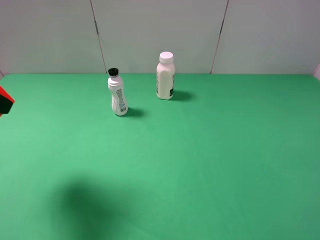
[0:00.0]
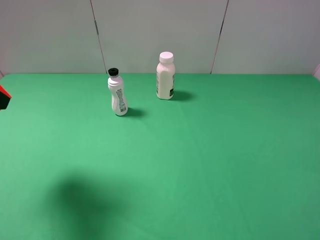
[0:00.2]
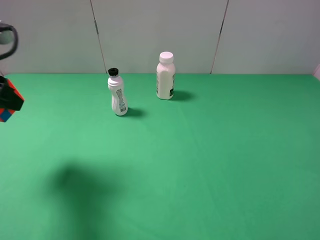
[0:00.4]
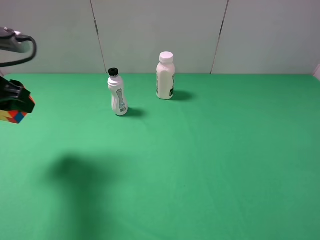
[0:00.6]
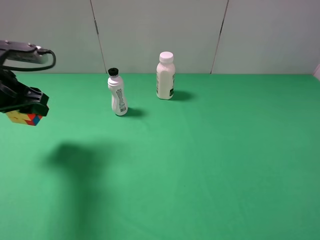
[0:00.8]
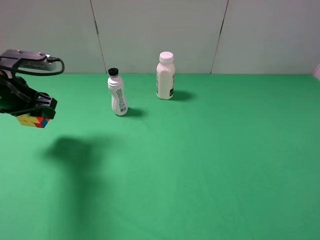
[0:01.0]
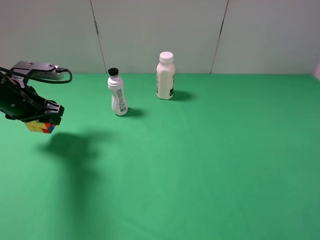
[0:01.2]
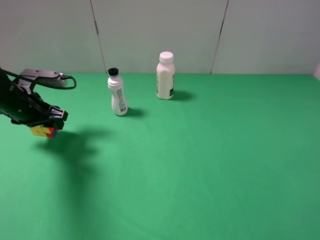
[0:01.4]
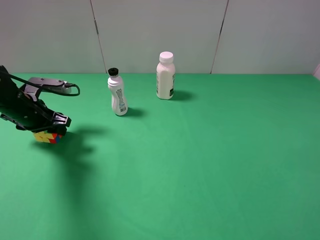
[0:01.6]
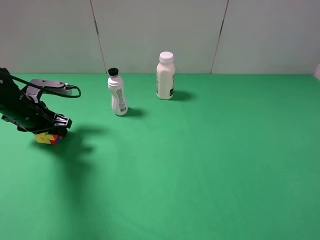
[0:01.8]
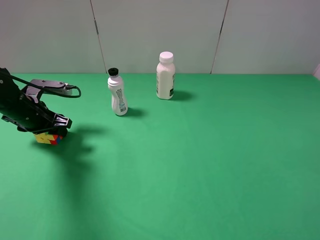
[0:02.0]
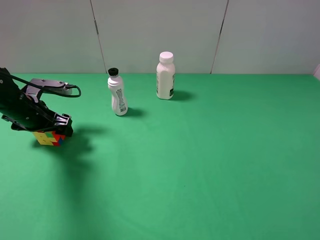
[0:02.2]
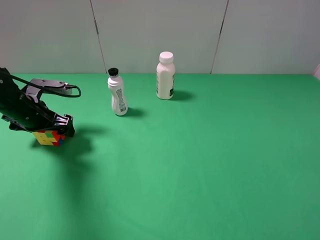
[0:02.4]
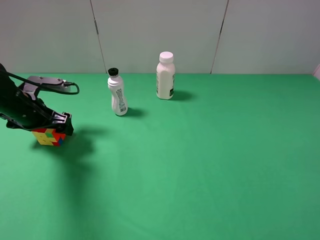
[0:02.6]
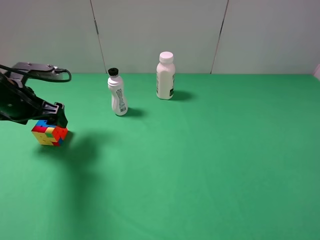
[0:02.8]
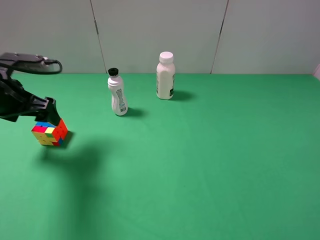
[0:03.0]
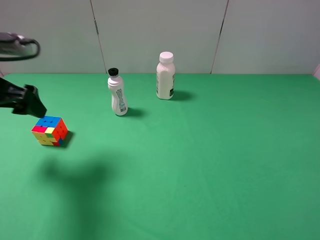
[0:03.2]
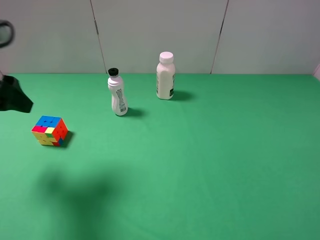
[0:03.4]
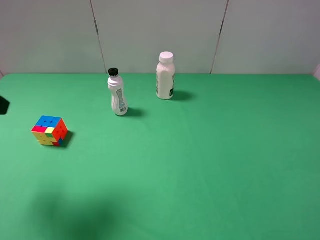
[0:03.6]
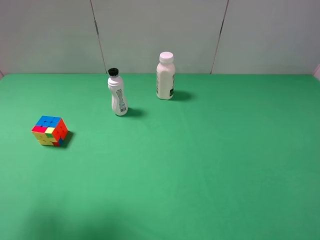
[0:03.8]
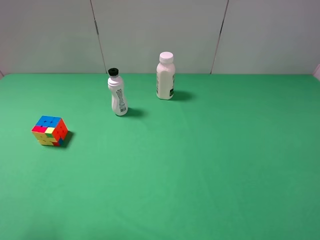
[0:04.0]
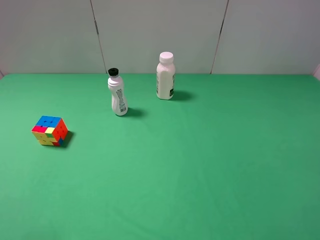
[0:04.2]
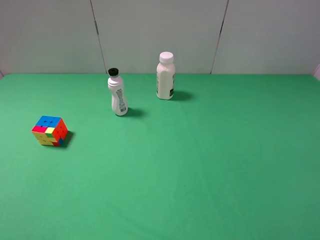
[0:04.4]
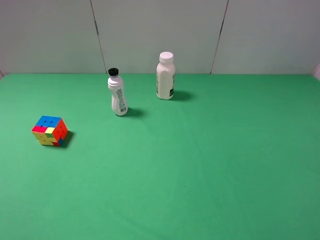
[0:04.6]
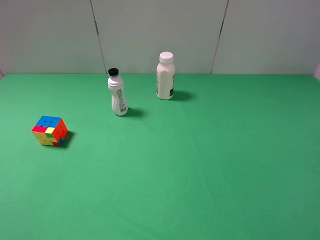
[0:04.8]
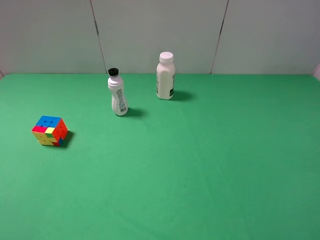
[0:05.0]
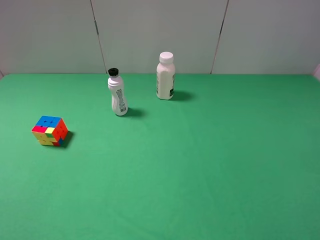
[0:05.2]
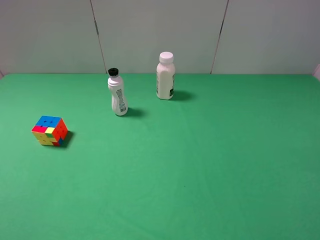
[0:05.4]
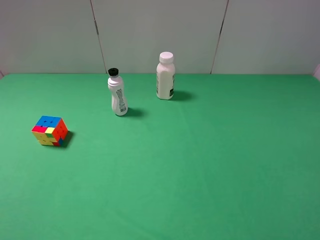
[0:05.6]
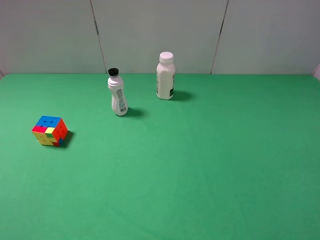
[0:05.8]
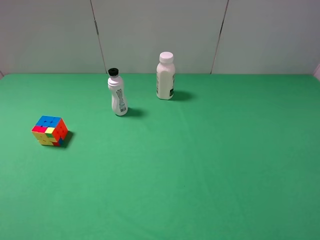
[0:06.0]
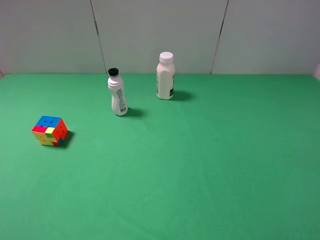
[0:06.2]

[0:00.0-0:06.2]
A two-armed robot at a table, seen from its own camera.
Task of the whole recording: use the right gripper to pick up the item and transfer it from the right gripper to the left gripper.
Step, 0:00.0 to 0:02.4: The left gripper places Rubik's Cube on the left side of the table.
0:00.0 to 0:01.6: The left gripper goes some 25 cm downward and forward.
0:01.6 to 0:03.2: The left gripper shifts approximately 15 cm upward and backward, and opens.
0:03.2 to 0:04.6: The left gripper is displaced backward by some 20 cm.

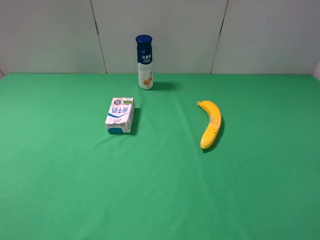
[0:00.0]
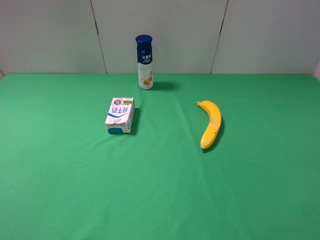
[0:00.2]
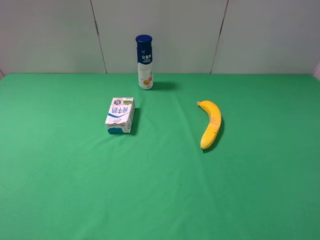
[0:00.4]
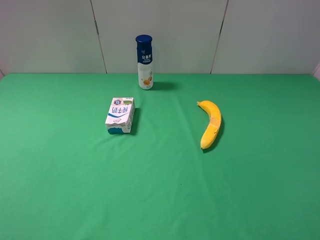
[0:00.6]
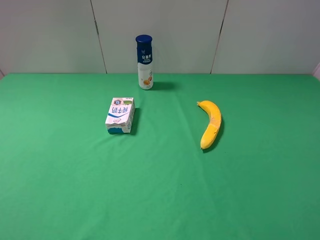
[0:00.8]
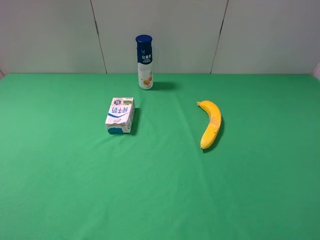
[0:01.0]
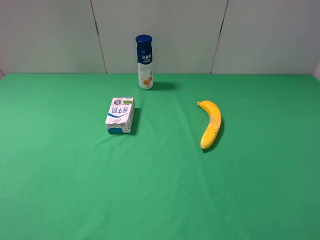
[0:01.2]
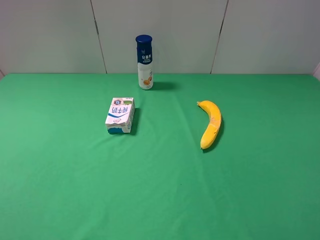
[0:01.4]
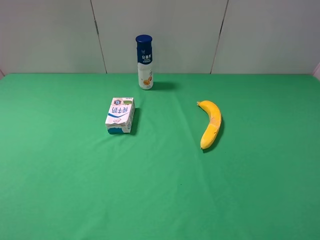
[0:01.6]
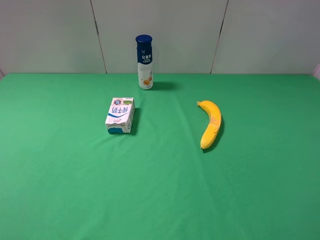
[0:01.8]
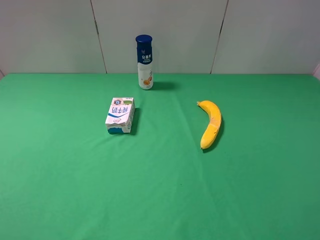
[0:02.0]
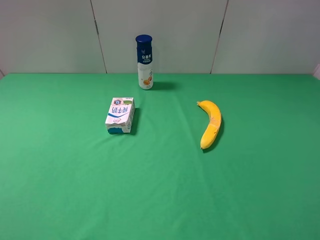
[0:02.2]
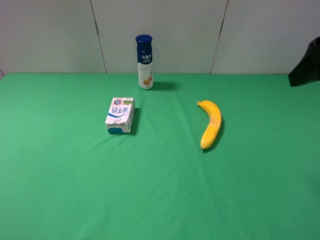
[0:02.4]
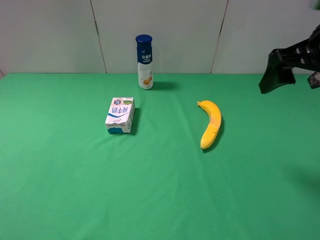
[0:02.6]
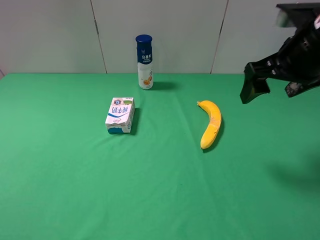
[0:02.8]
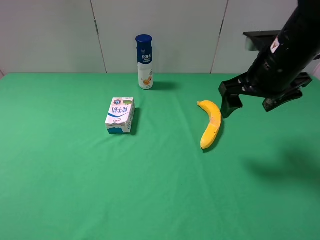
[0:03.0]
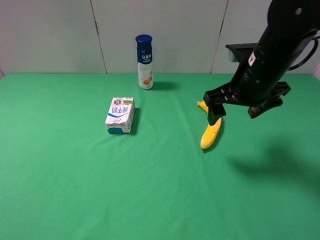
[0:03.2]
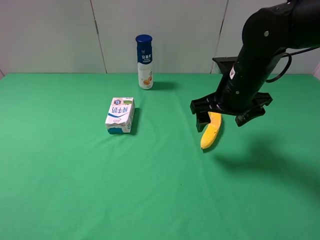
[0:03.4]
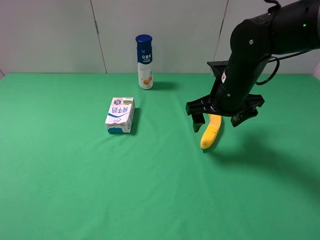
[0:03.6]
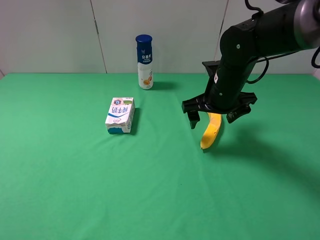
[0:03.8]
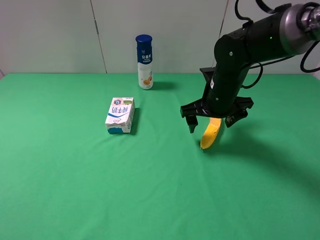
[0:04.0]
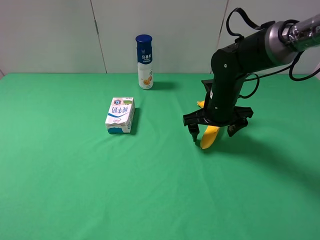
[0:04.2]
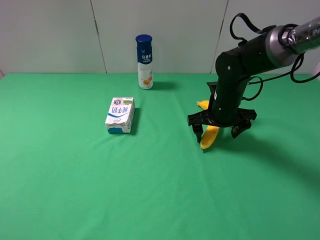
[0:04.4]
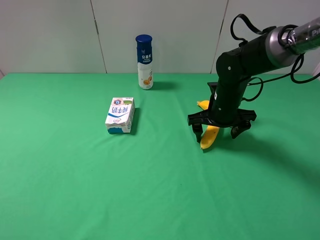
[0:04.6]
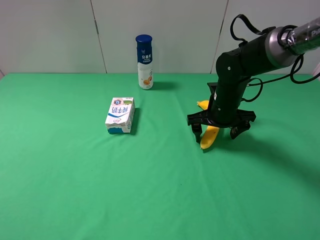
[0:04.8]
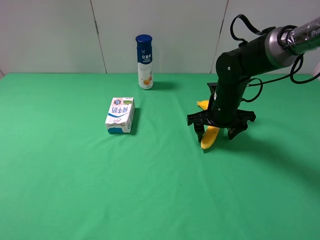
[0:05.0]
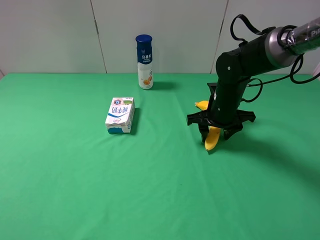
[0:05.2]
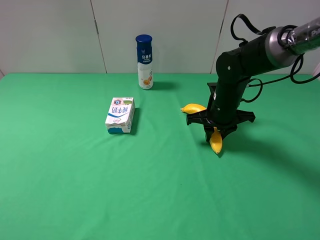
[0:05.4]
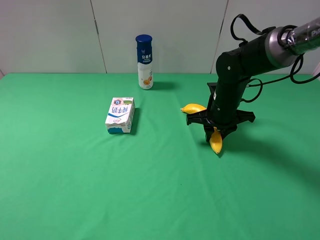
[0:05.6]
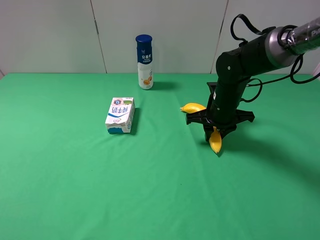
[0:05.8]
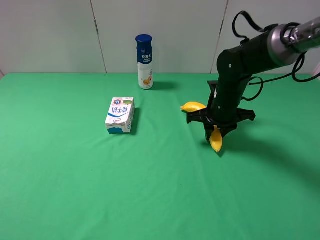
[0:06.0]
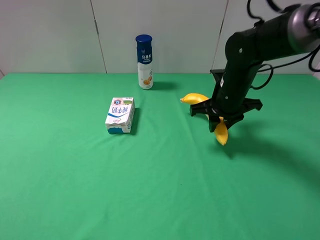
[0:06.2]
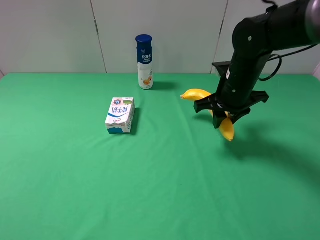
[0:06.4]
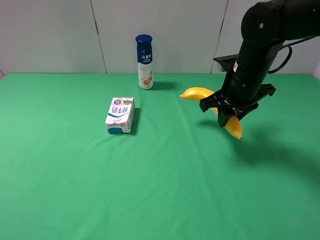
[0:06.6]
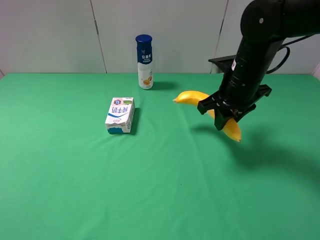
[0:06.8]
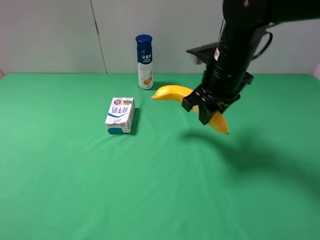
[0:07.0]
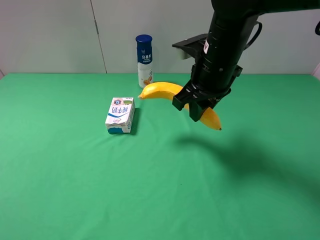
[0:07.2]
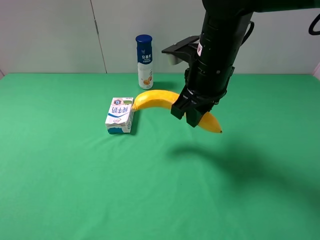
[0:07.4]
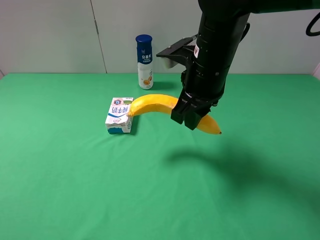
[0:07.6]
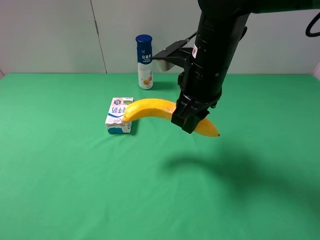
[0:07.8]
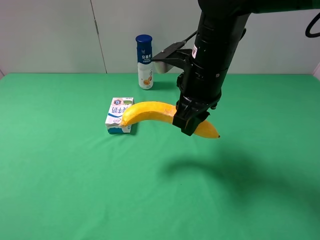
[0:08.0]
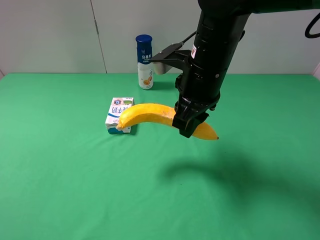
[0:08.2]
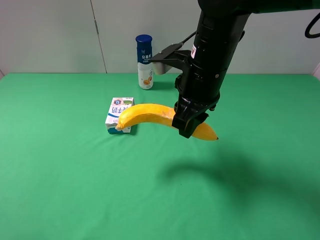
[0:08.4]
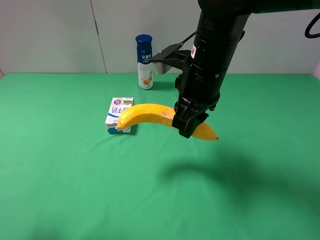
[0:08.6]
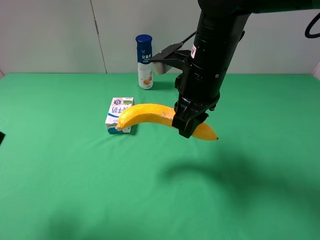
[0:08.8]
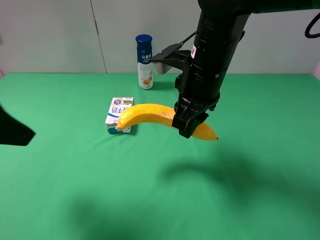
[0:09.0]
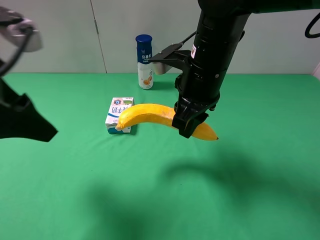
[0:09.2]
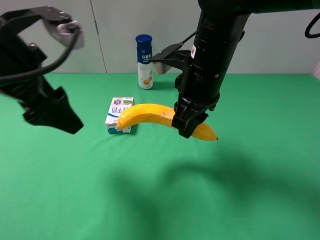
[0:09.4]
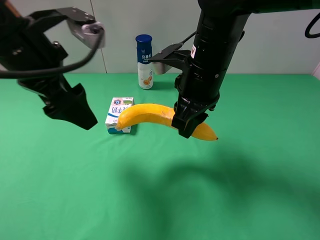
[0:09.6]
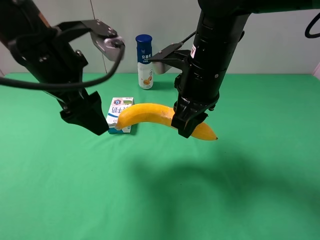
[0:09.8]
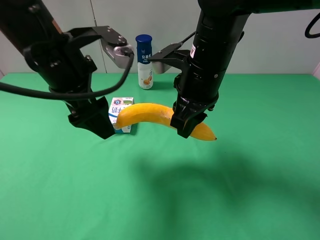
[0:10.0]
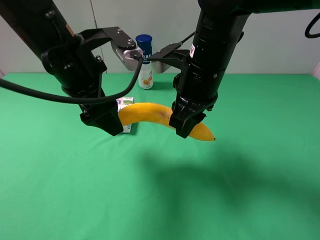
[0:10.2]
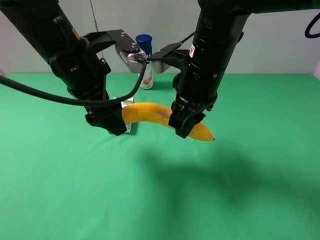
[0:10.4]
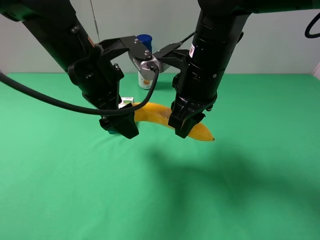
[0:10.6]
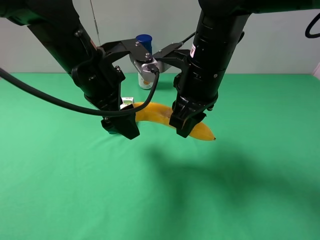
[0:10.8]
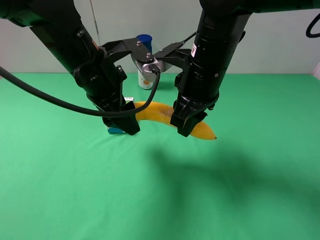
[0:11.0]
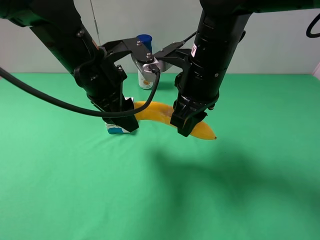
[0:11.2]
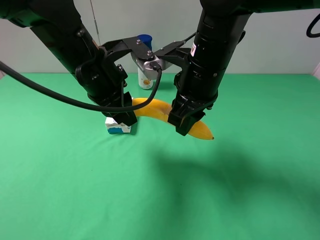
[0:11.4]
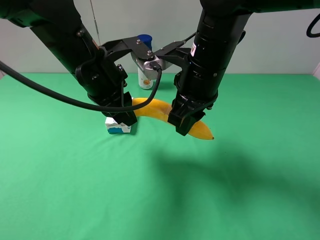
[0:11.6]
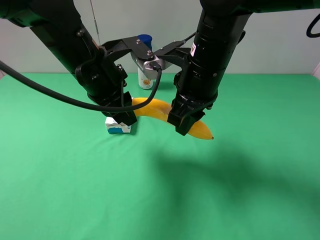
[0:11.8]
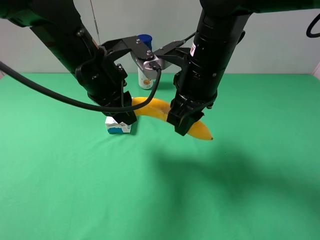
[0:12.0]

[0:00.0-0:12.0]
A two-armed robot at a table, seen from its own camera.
Task of the whole recording: use the right gripper to pick up the item and transfer it from the right gripper to the left gripper.
0:01.6 to 0:03.0: The right gripper shifts about 30 cm forward and to the left.
0:03.0 to 0:04.4: The right gripper travels downward and forward by roughly 15 cm.
0:04.4 to 0:06.0: The right gripper closes its fingers.
0:06.0 to 0:07.6: The right gripper moves upward, to the left and backward, about 15 cm.
0:07.6 to 0:09.0: The left gripper travels forward and to the right by approximately 20 cm.
0:09.0 to 0:10.4: The left gripper moves to the right, forward and downward, some 15 cm.
0:10.4 to 0:12.0: The left gripper closes its fingers; the right gripper opens its fingers.

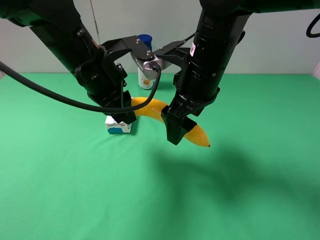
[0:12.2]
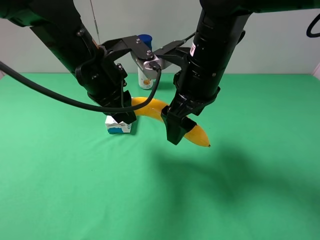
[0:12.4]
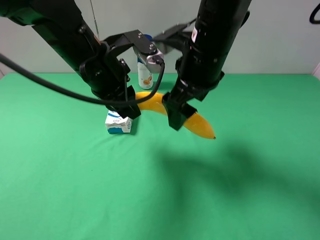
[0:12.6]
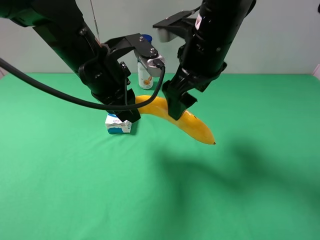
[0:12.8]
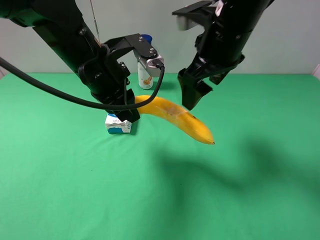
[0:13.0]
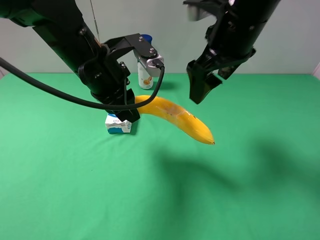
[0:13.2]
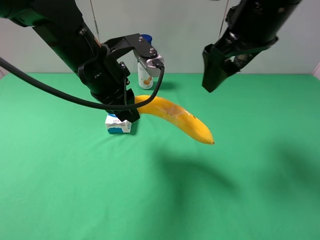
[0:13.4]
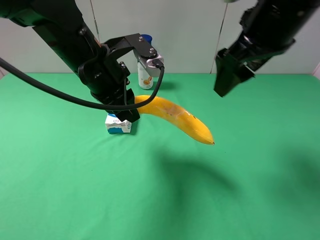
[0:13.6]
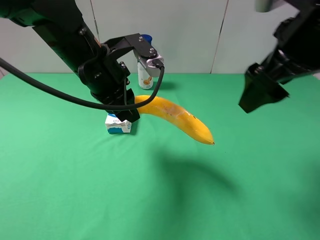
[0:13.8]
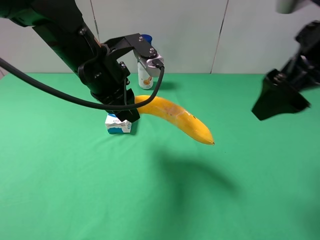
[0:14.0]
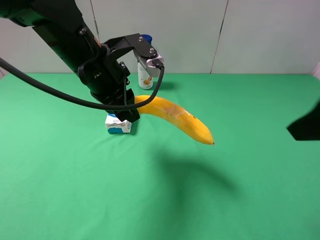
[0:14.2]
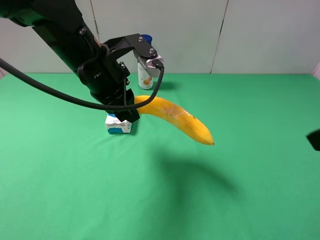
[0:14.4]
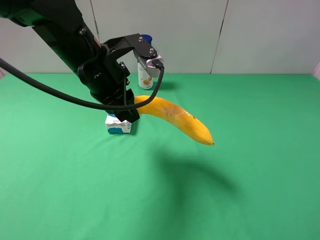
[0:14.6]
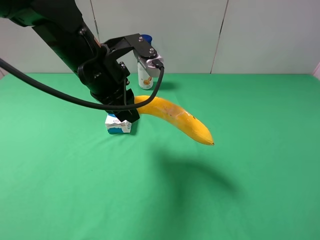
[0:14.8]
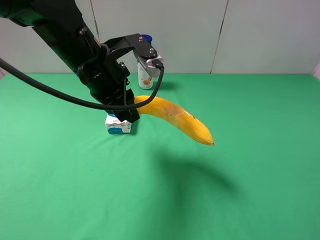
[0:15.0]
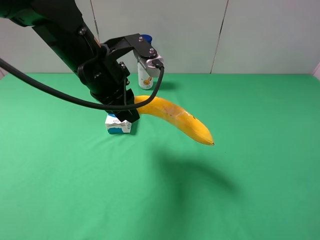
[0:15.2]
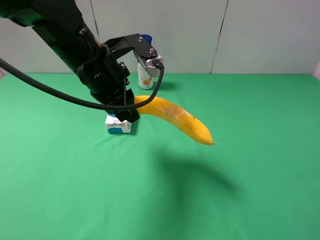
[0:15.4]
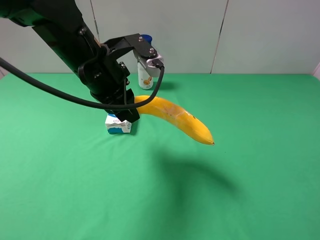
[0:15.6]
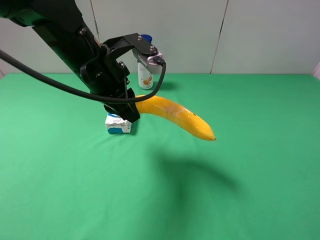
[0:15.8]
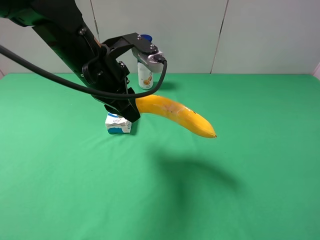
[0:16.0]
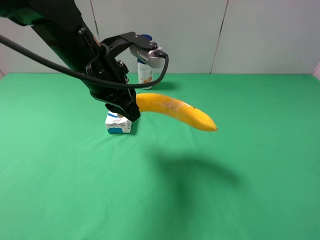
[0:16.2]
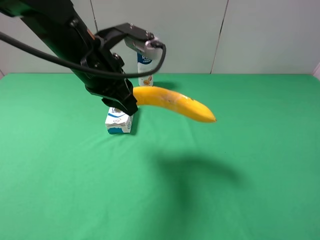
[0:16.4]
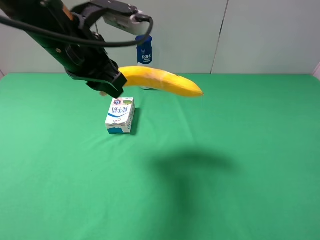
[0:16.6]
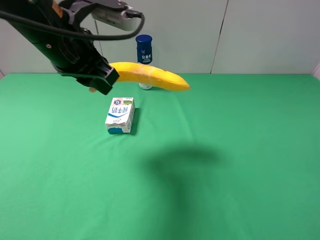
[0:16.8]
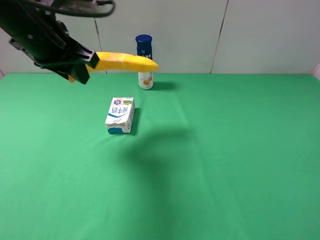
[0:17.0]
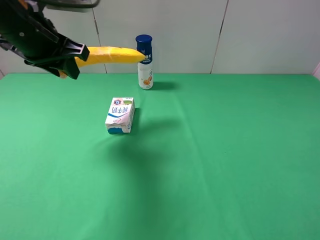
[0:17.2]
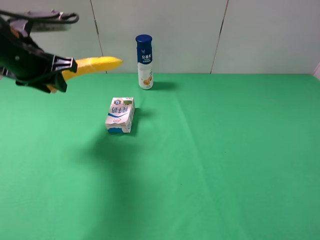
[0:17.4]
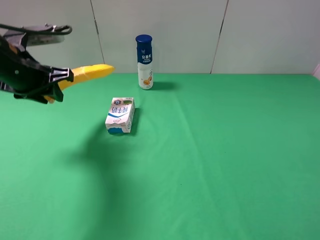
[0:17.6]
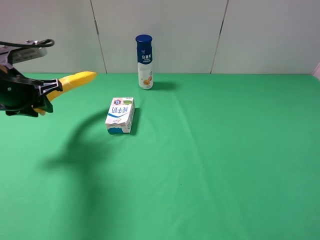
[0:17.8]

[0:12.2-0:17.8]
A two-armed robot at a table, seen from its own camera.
Task of the whole recording: use the right gripper to pick up the item and transfer it from the right gripper to the left gripper.
0:12.2 to 0:13.6: The right gripper moves to the right and upward, about 15 cm.
0:13.6 to 0:15.0: The right gripper goes about 30 cm backward and to the right.
0:16.4 to 0:17.8: The left gripper travels to the left by some 15 cm.
